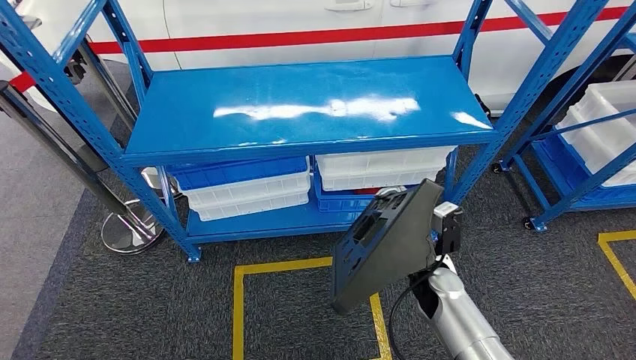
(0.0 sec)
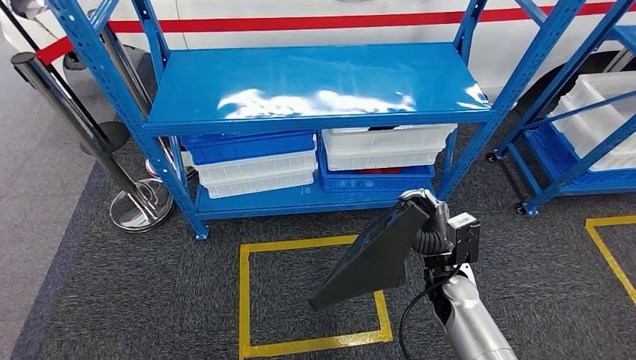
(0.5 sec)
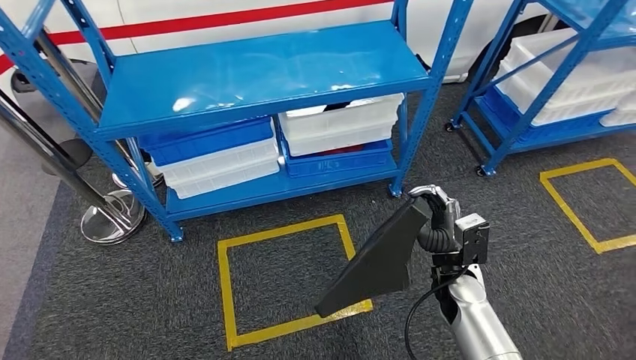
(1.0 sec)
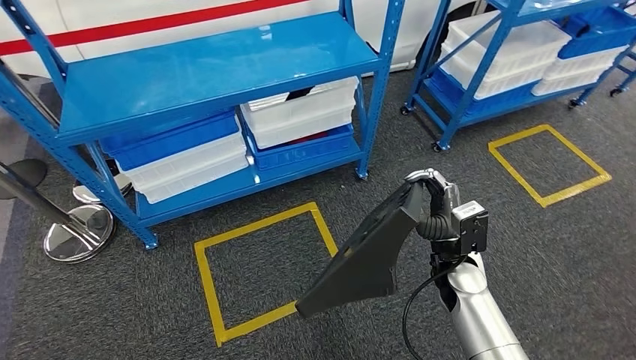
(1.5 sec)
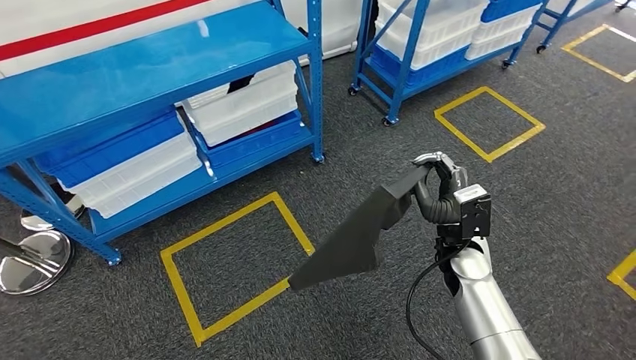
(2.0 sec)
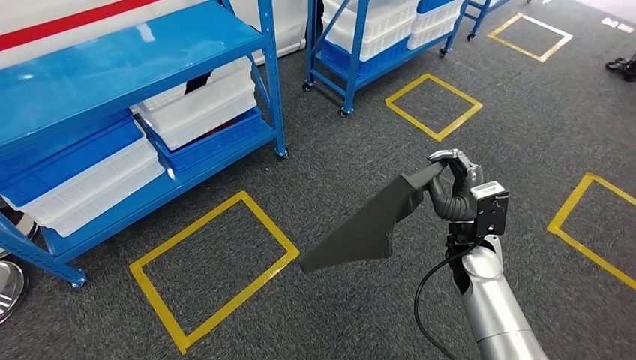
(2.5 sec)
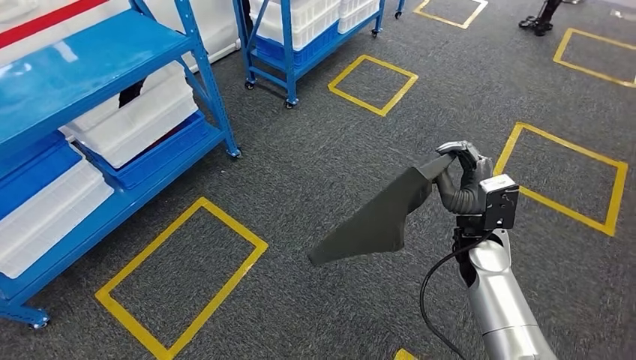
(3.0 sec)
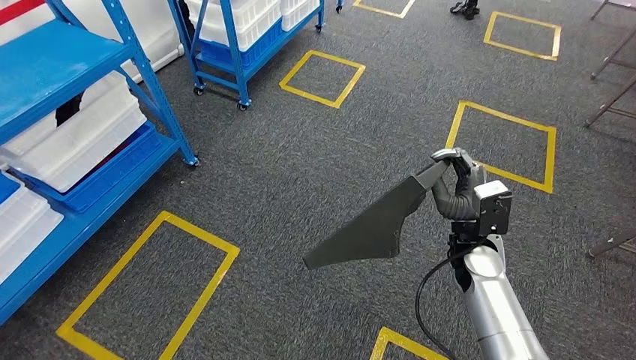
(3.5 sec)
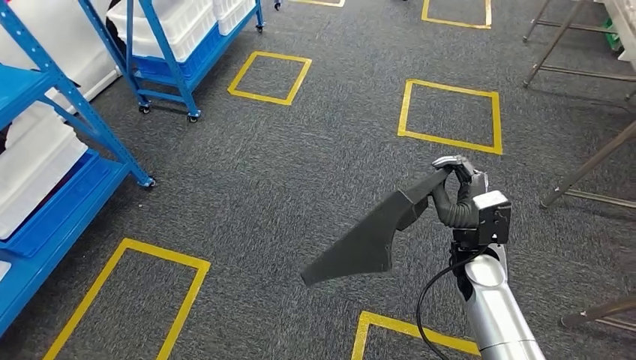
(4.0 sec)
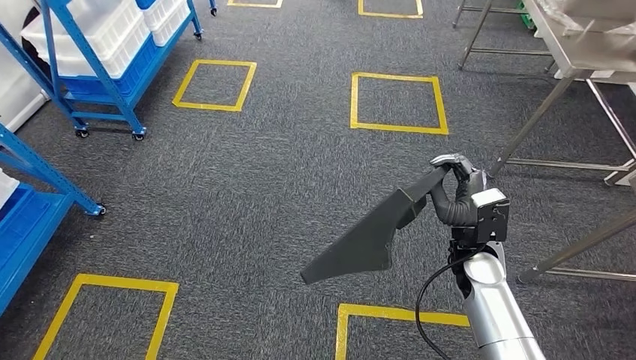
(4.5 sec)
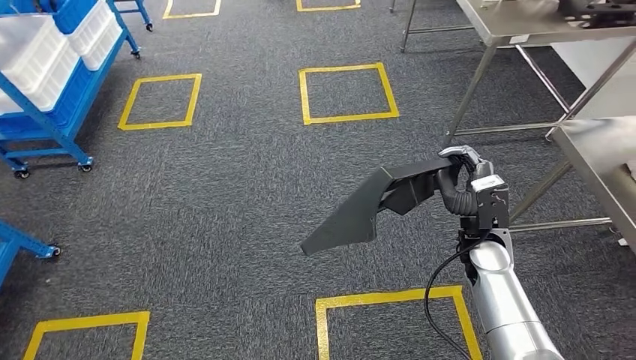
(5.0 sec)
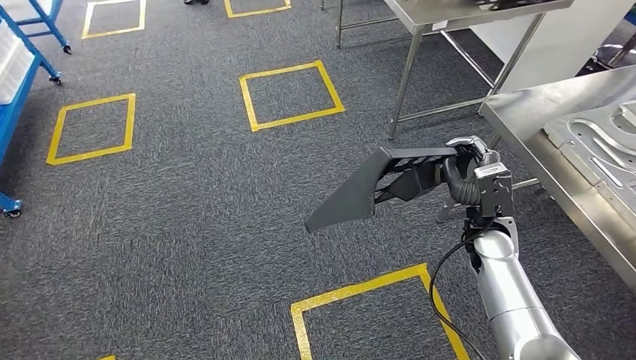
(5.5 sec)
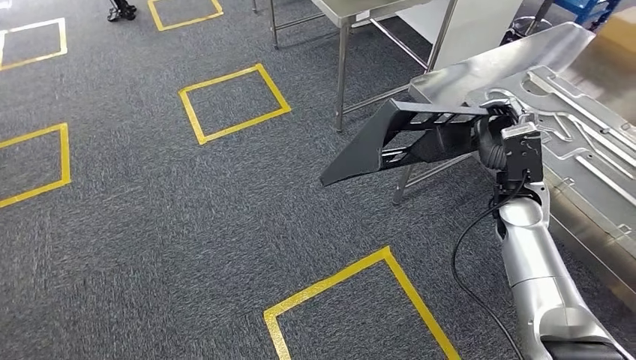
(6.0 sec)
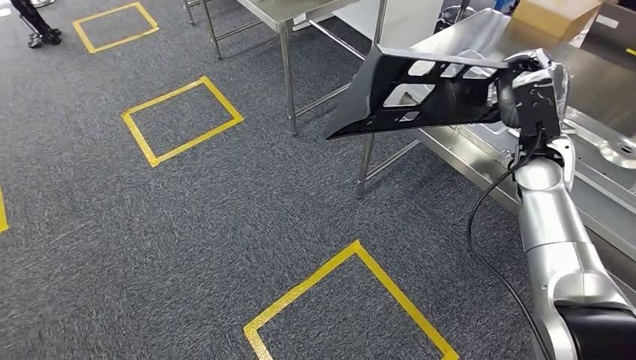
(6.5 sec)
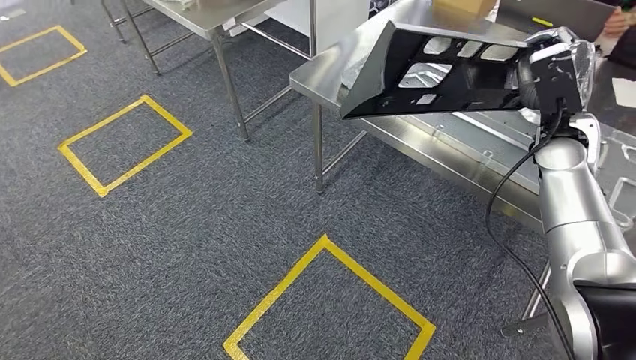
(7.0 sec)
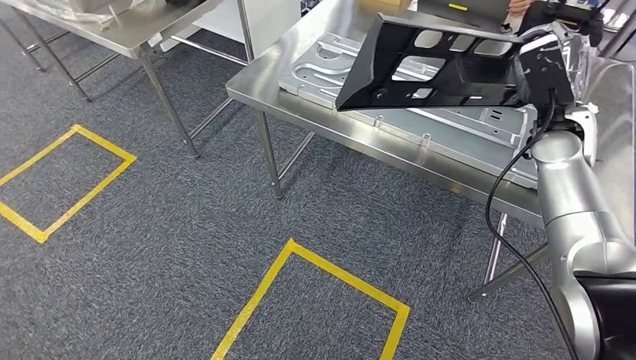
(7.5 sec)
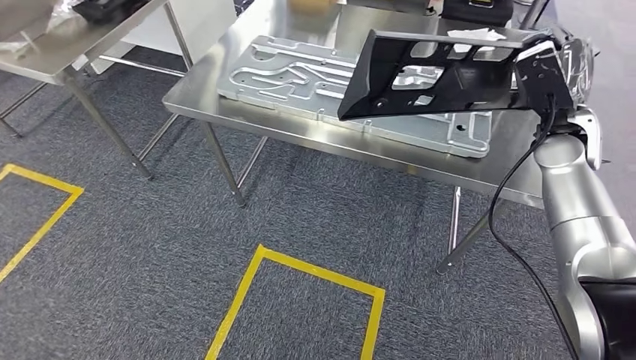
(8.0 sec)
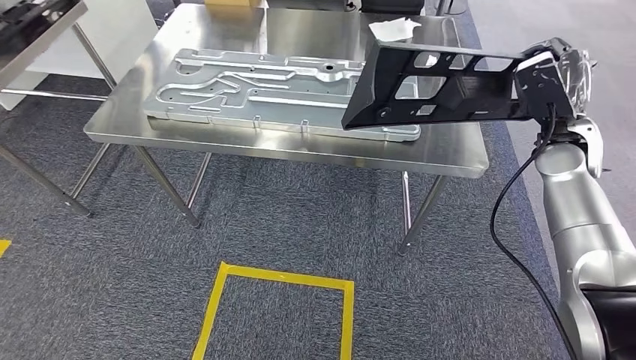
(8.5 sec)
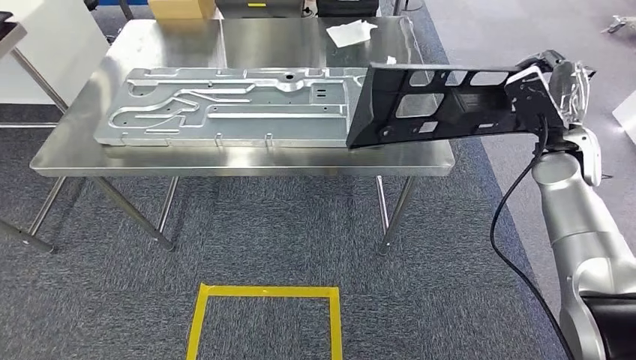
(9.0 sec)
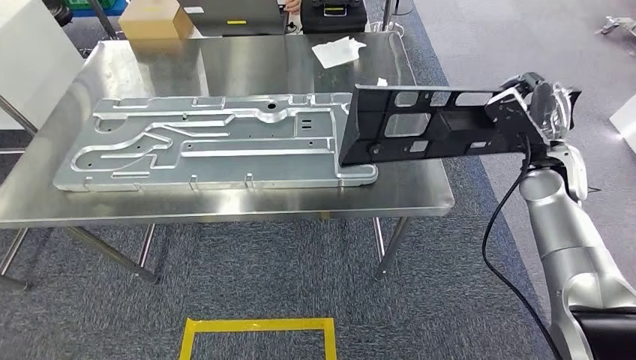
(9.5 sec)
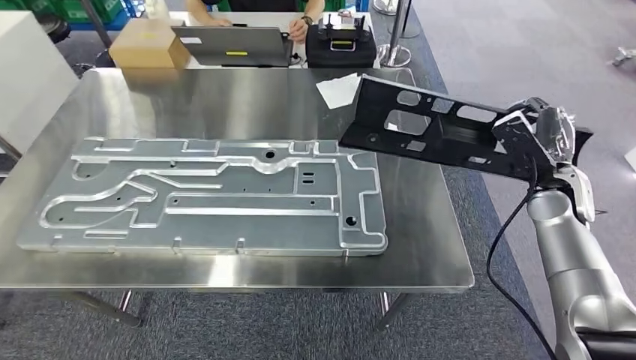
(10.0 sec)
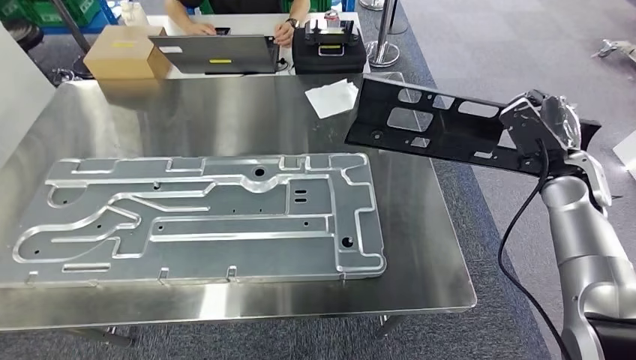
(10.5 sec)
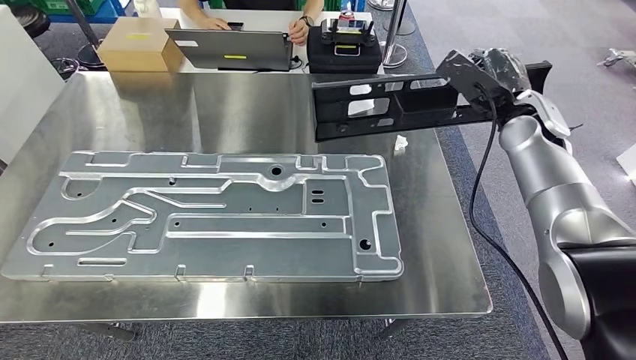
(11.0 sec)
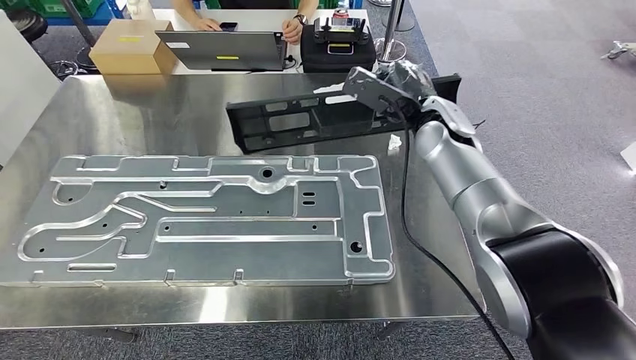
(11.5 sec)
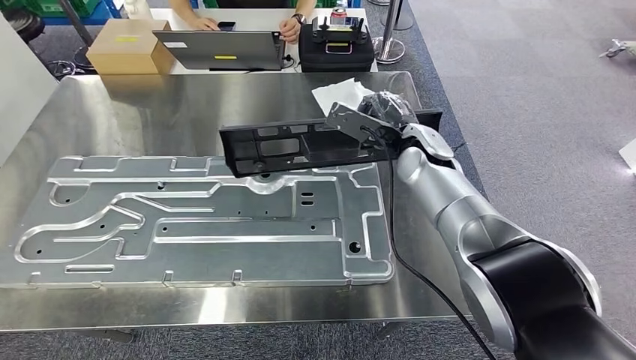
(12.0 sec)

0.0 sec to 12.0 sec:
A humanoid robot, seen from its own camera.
Step, 0.5 sec to 10.5 sec: Move the large material to the workbench.

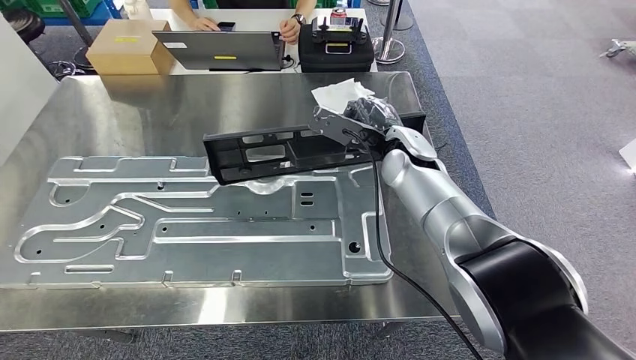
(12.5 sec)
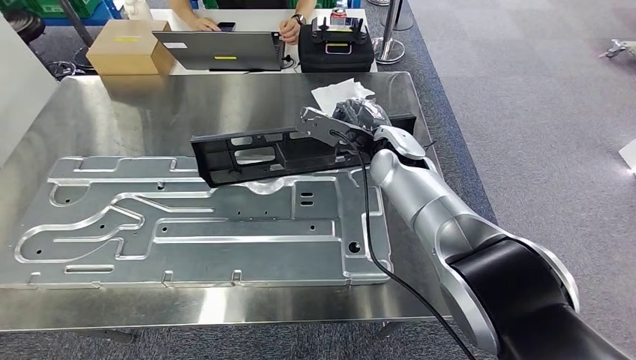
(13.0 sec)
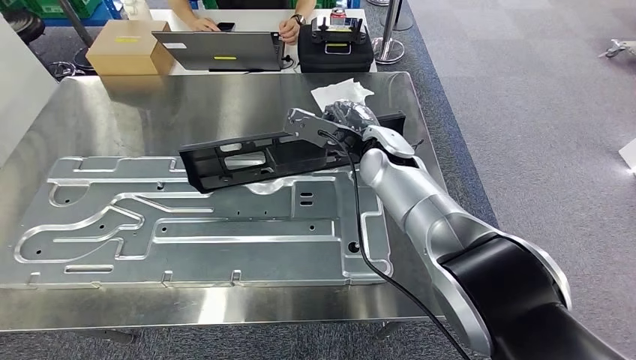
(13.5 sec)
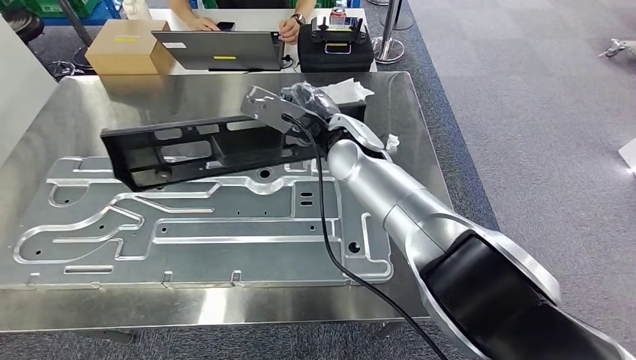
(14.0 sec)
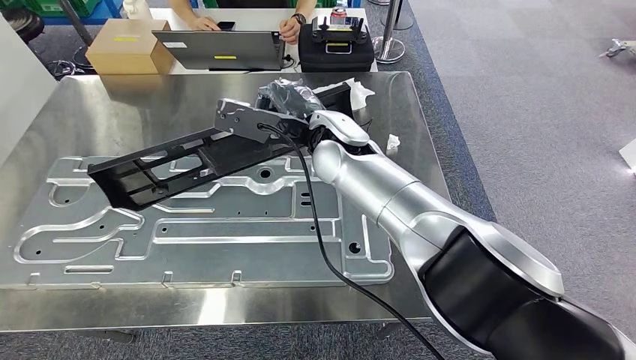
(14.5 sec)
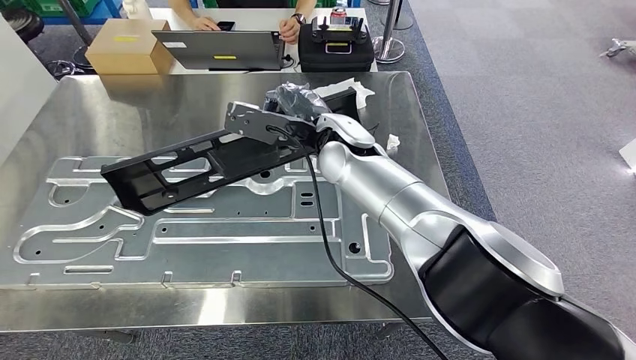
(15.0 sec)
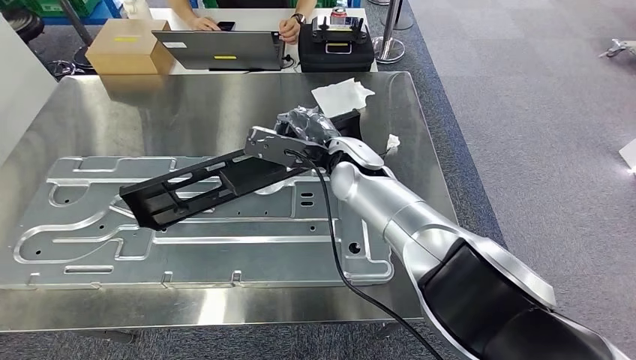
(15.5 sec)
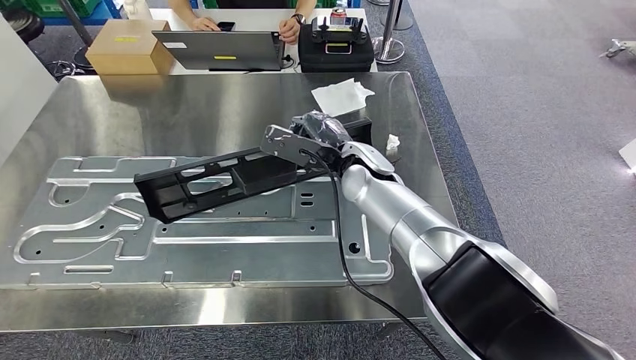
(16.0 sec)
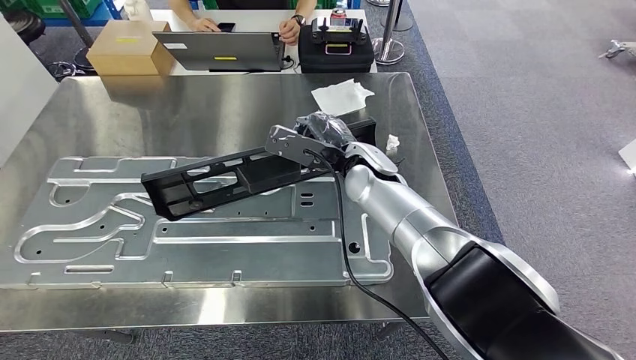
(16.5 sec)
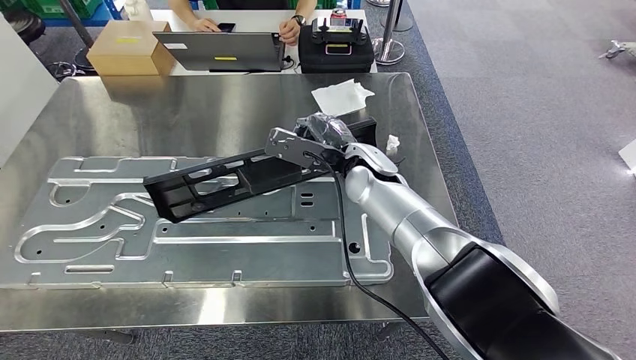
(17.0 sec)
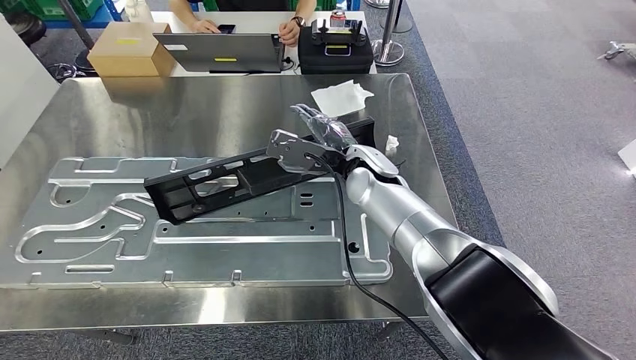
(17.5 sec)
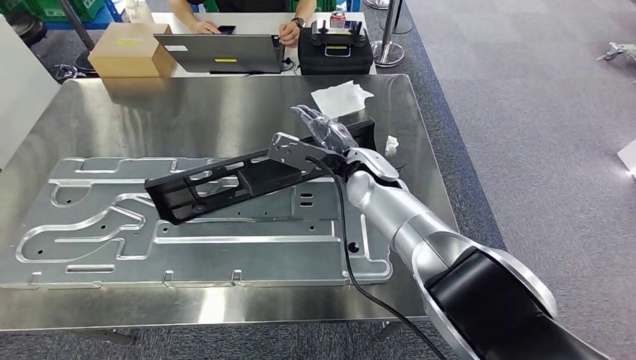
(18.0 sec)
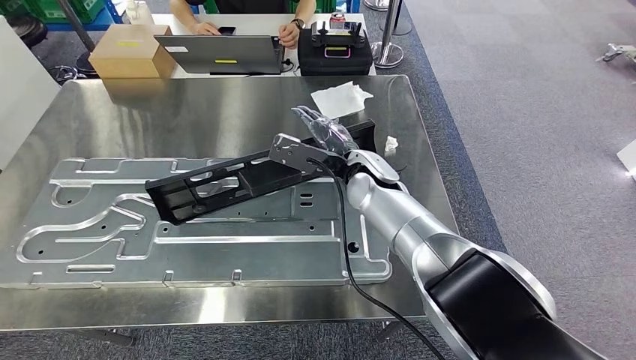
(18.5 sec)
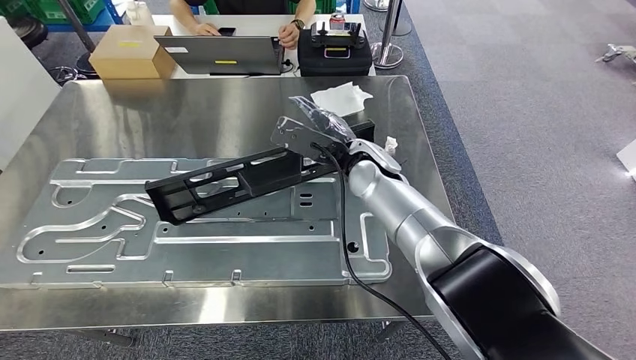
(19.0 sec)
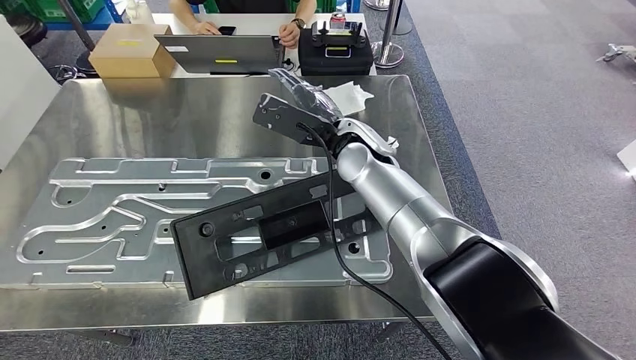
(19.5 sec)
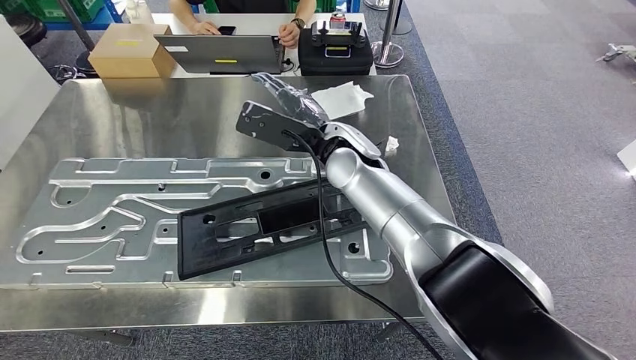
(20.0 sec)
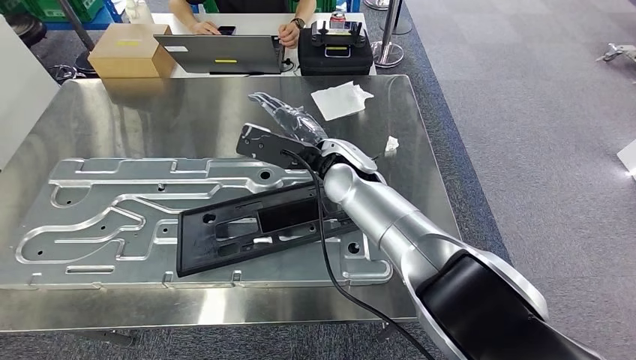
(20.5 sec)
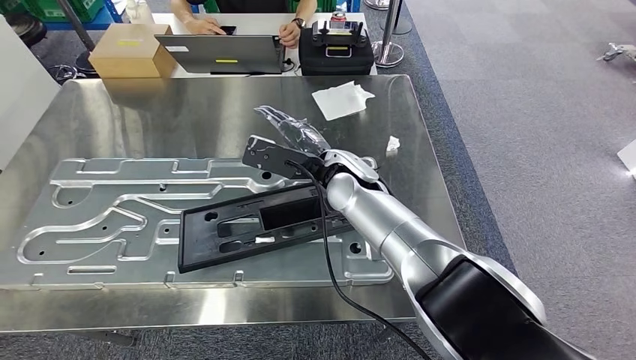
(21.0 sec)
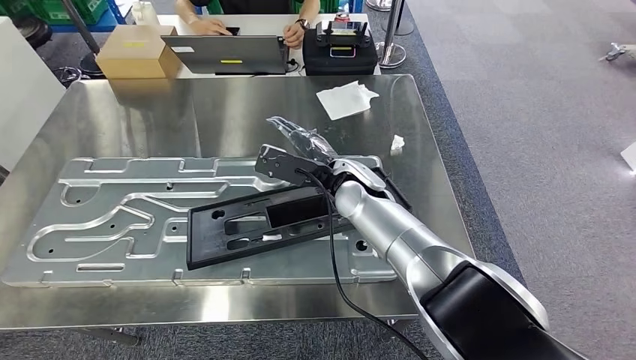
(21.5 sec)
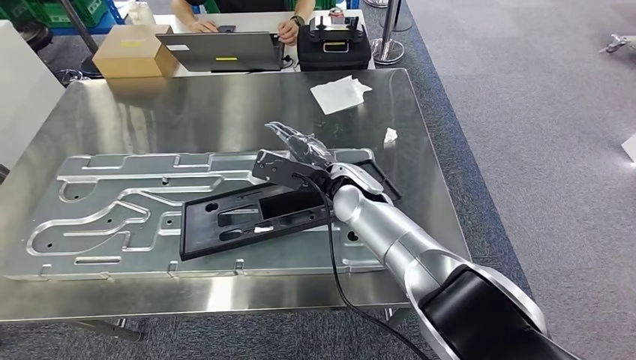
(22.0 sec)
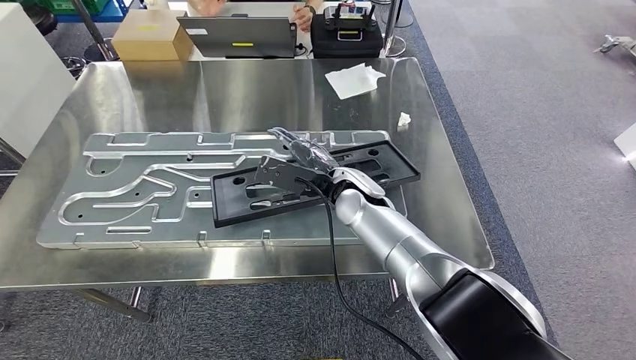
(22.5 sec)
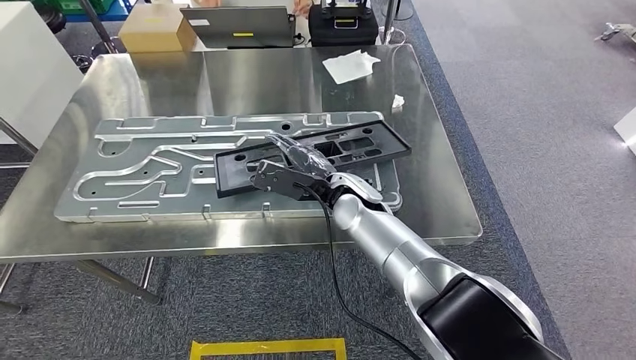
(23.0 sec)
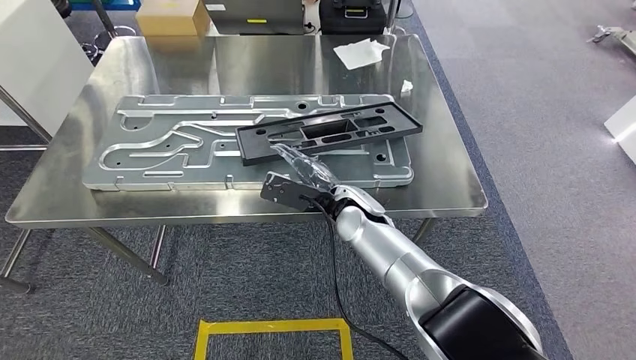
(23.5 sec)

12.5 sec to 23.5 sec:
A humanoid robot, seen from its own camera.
Step, 12.5 sec to 22.0 sec: Insert the large material into the corresponding slot on the workbench.
12.5 sec to 14.5 sec: The right hand moves to the left, upward and backward, roughly 15 cm.
14.5 sec to 16.0 sec: The right hand moves downward and to the right, about 10 cm.
16.0 sec to 18.0 sec: There are only small adjustments of the hands.
18.0 sec to 20.0 sec: The right hand shifts roughly 5 cm upward.
